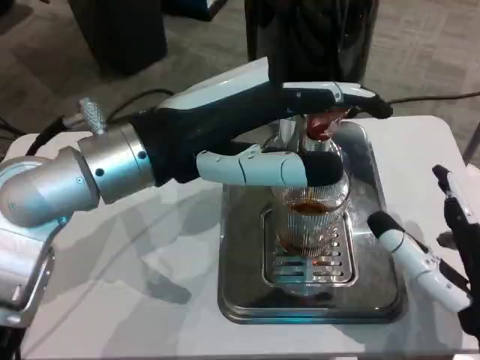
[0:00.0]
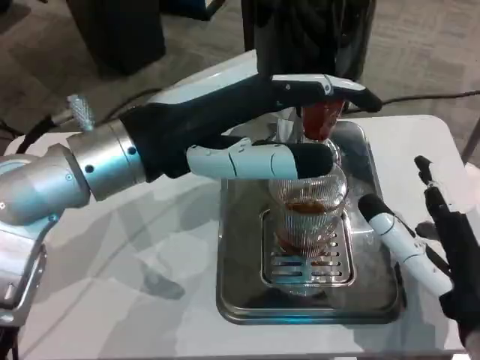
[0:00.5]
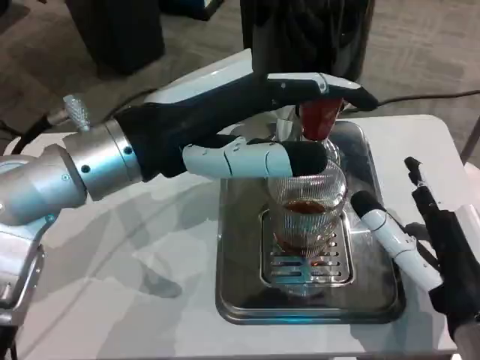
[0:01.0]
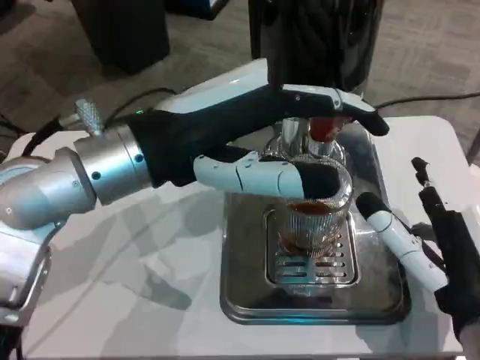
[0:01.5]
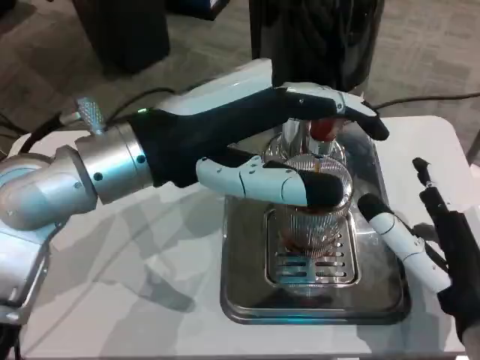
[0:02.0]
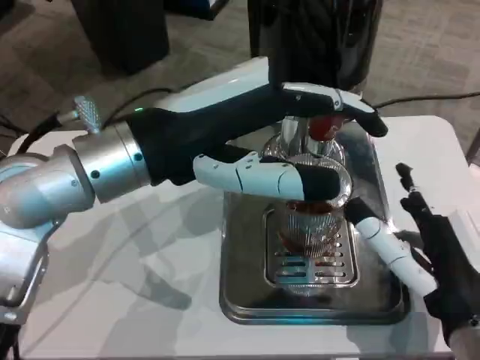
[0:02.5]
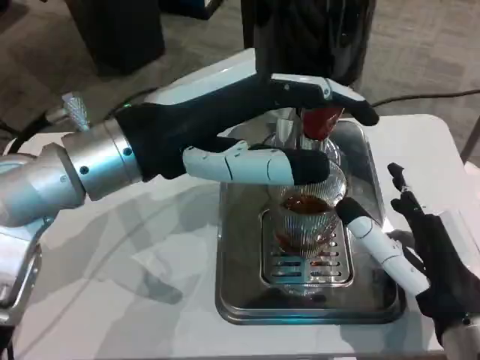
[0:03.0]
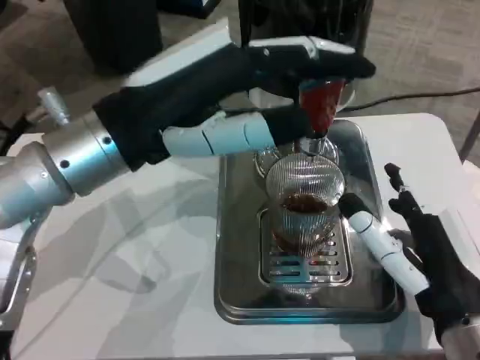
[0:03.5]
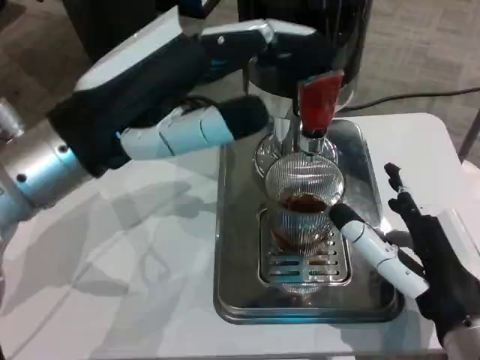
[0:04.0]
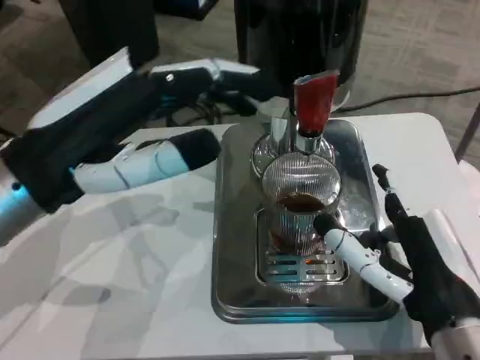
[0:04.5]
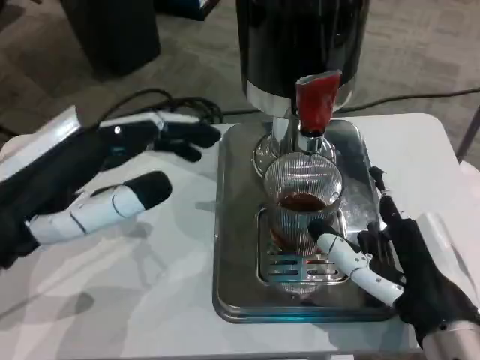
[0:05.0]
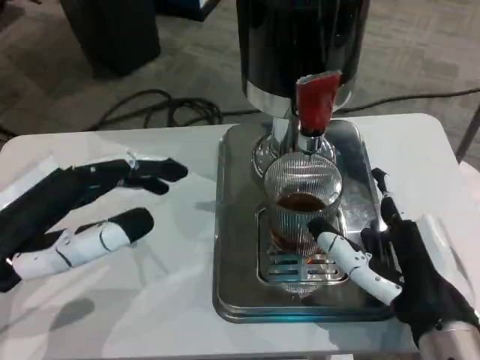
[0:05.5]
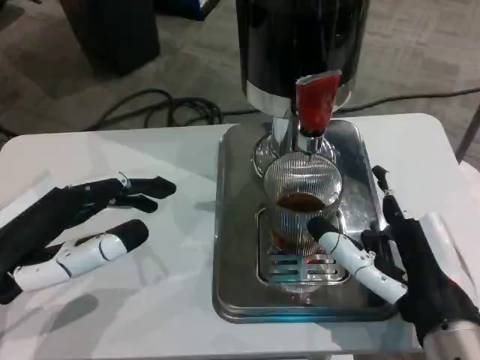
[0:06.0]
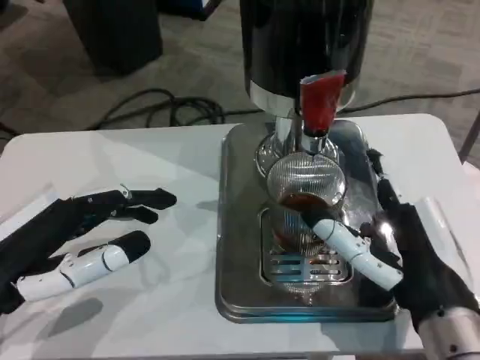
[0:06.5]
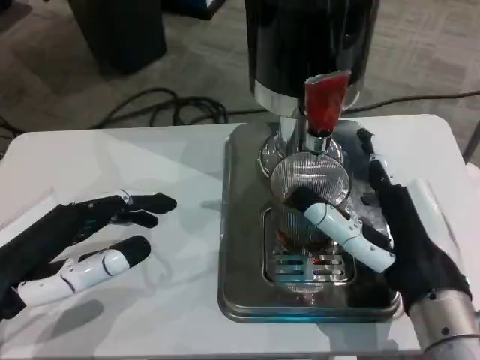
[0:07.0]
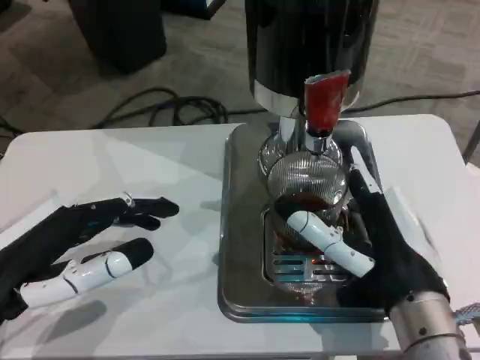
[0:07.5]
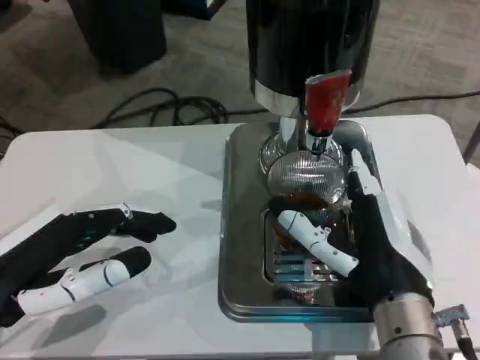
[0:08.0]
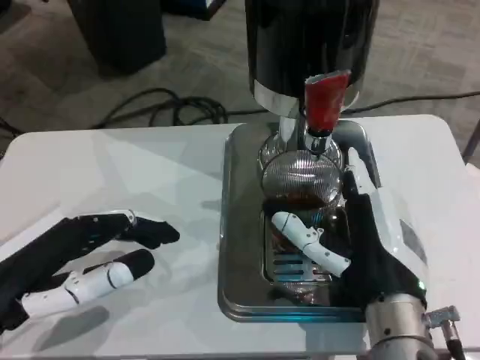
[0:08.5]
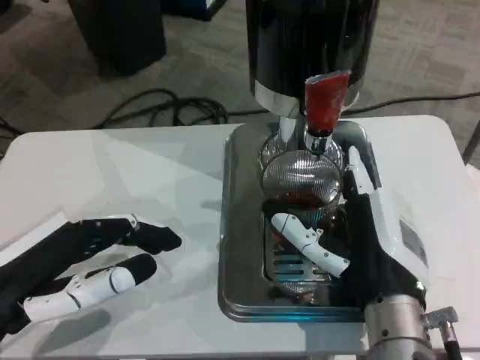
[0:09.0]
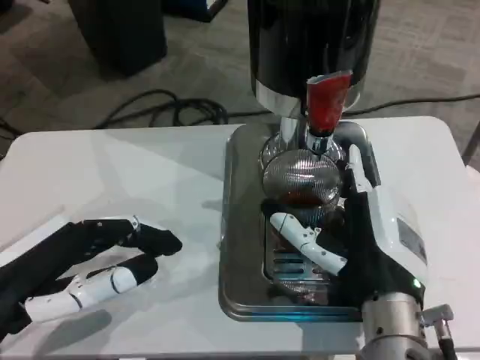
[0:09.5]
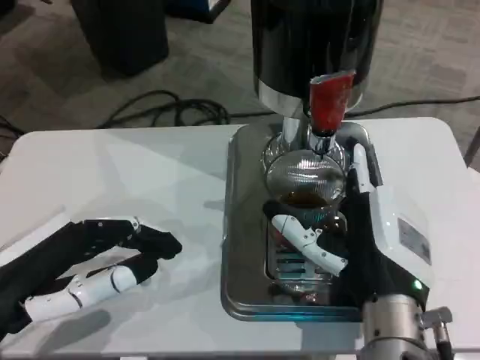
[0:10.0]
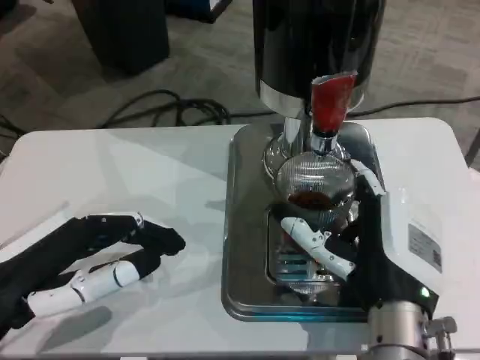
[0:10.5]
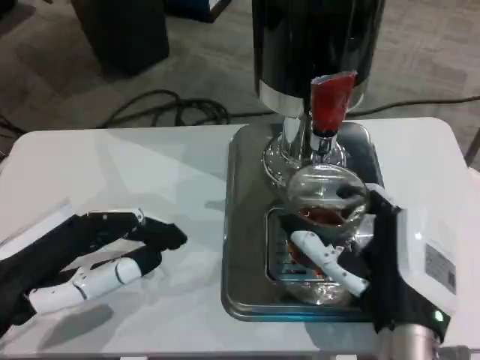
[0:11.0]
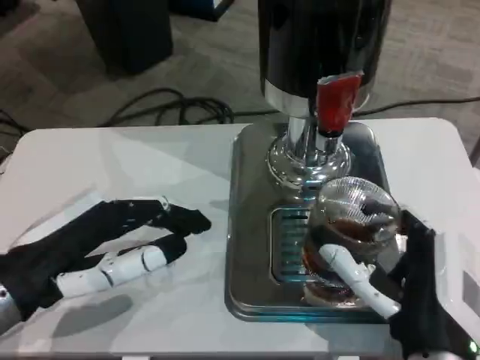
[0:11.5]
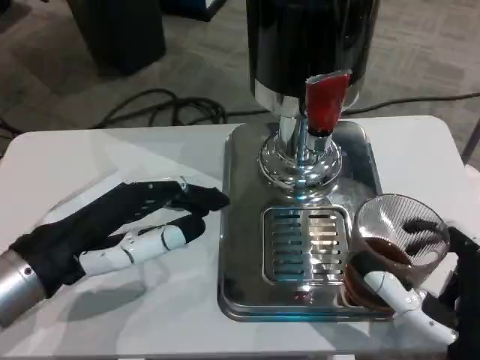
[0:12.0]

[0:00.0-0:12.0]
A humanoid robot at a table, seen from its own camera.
Task of the whole recording: Grasp the cup under the faucet to collect the drink, then remove the cup.
0:04.0 to 0:06.0: The left hand moves downward, to the left and backward, roughly 15 cm.
0:10.0 to 0:12.0: The right hand is displaced backward and to the right by approximately 10 cm. The left hand shifts by some 5 cm.

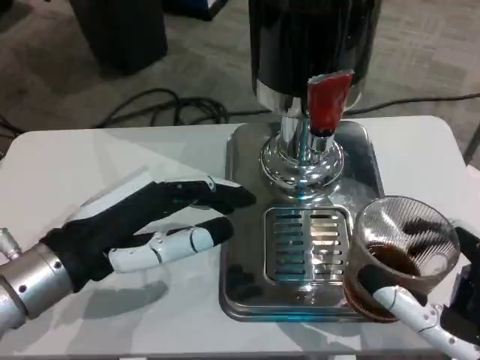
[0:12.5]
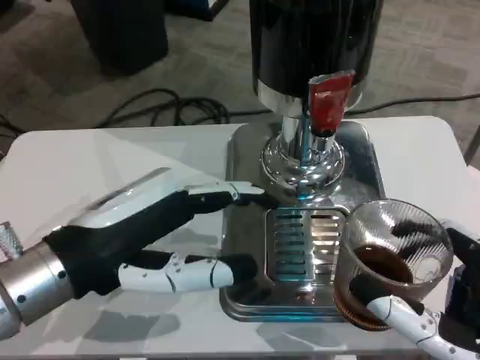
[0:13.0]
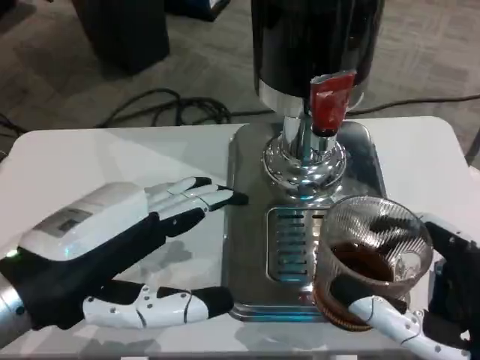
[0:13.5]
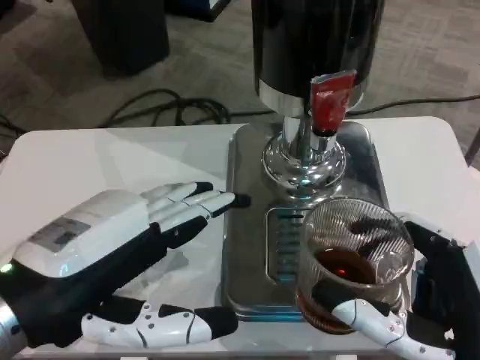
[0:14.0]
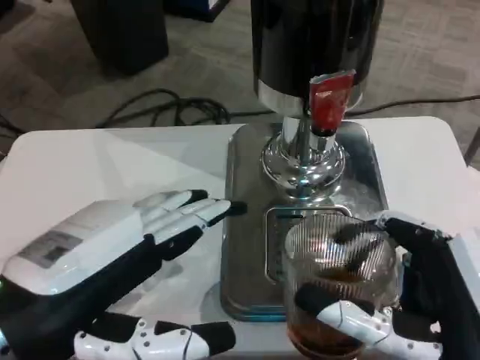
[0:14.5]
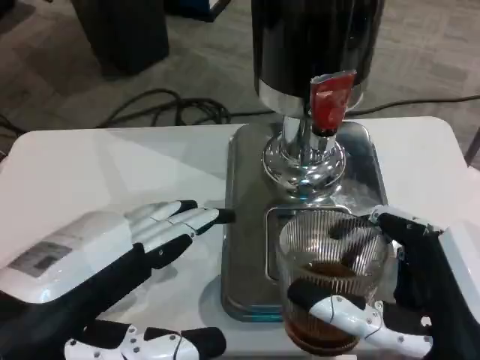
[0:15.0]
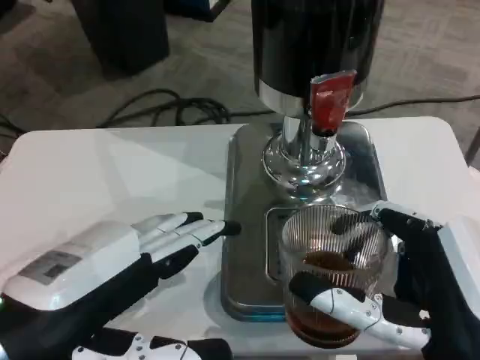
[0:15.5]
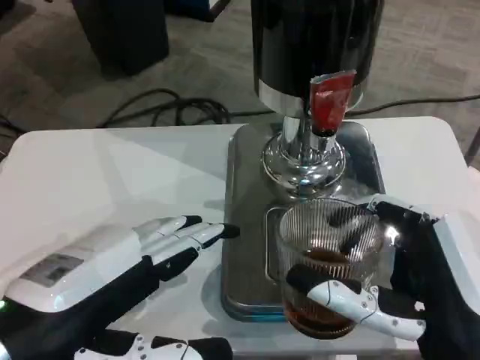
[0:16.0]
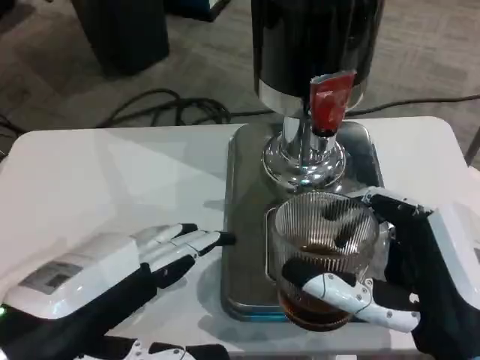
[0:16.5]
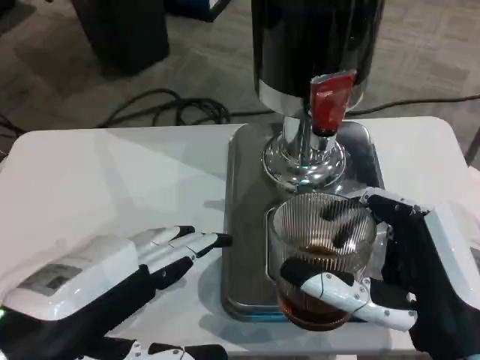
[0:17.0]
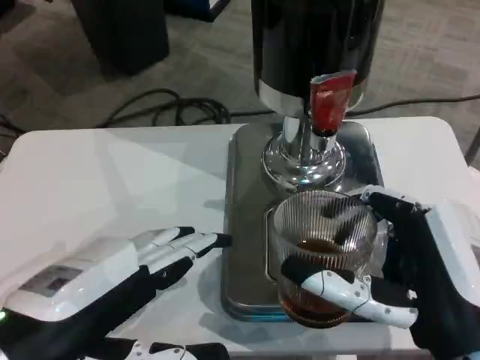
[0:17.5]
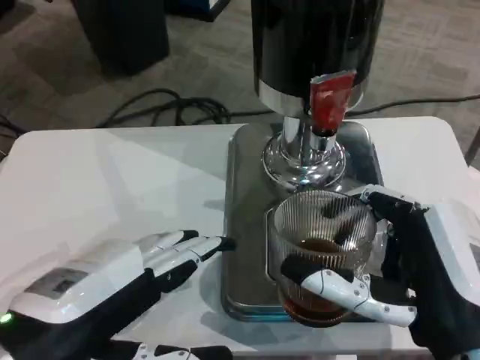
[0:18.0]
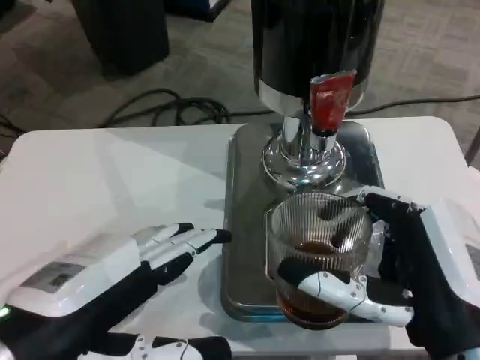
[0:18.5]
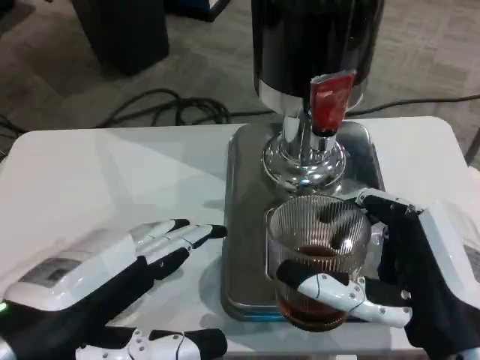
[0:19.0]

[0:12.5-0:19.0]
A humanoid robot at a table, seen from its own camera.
Task of the whole recording: Grasp the cup under the faucet to collect the drink, then remove the cup.
0:12.5 to 0:14.5: The left hand shifts about 10 cm backward.
0:17.0 to 0:19.0: The two hands keep their place.

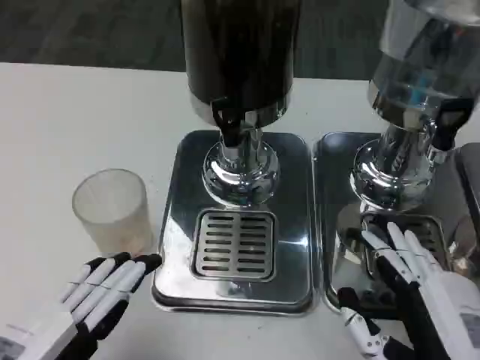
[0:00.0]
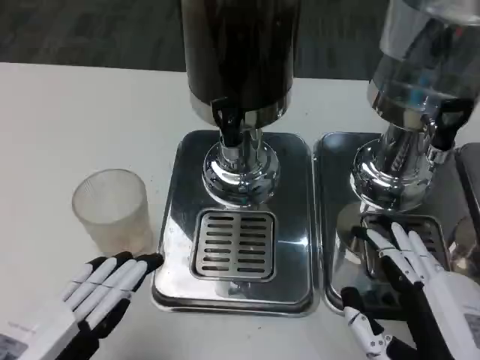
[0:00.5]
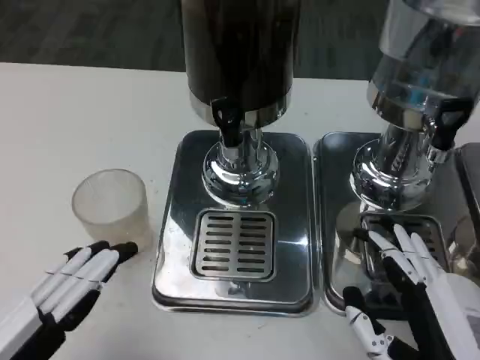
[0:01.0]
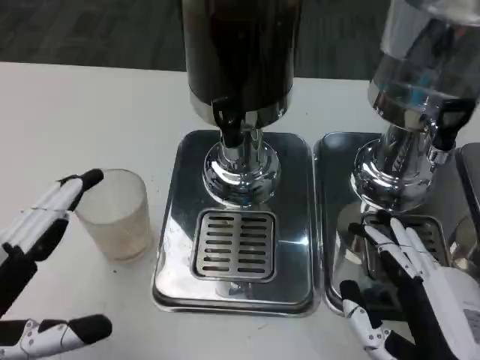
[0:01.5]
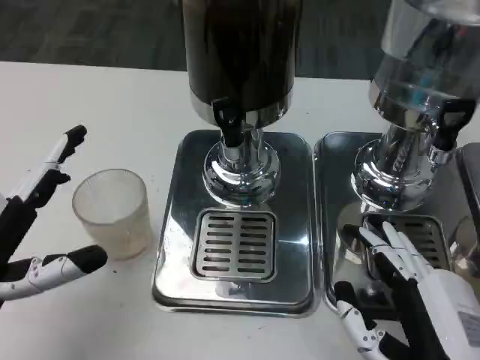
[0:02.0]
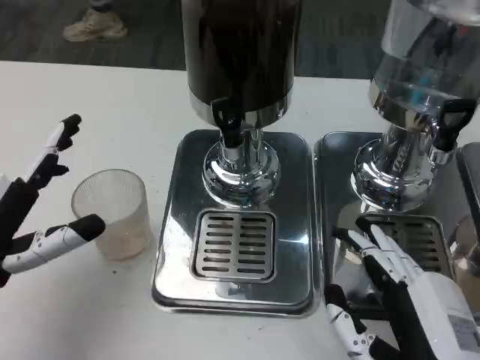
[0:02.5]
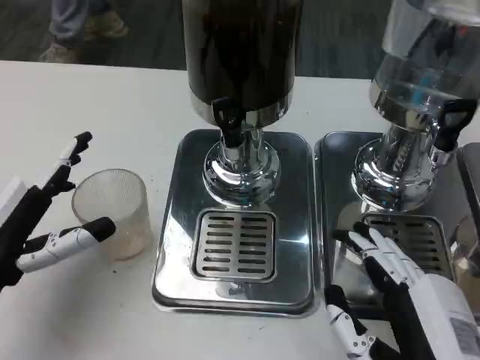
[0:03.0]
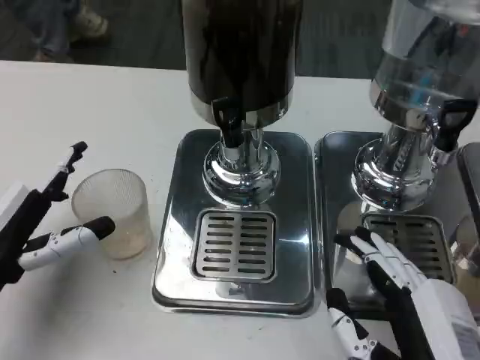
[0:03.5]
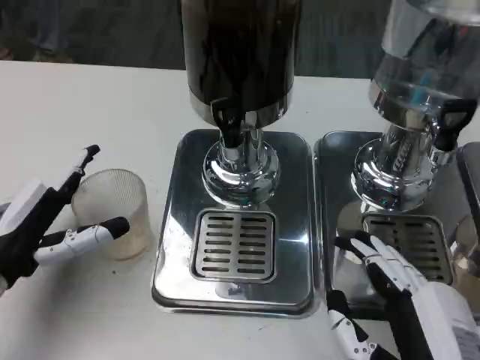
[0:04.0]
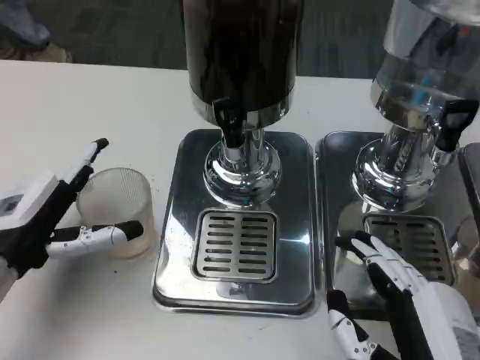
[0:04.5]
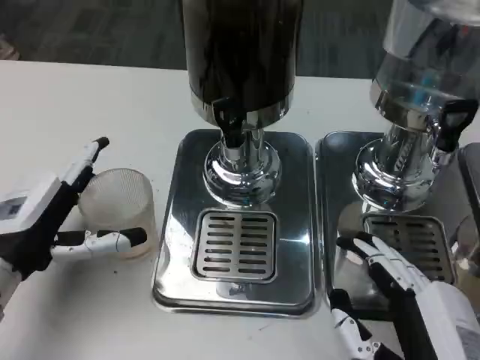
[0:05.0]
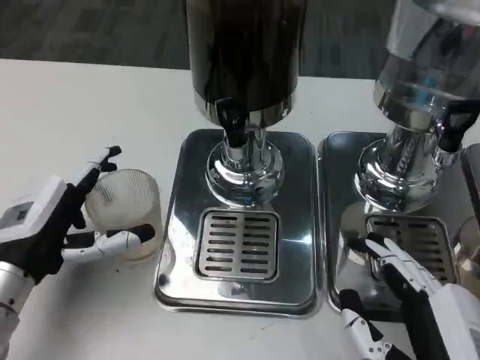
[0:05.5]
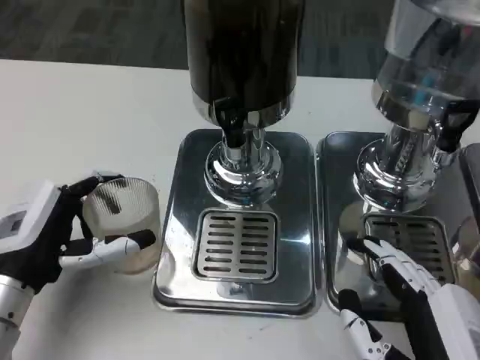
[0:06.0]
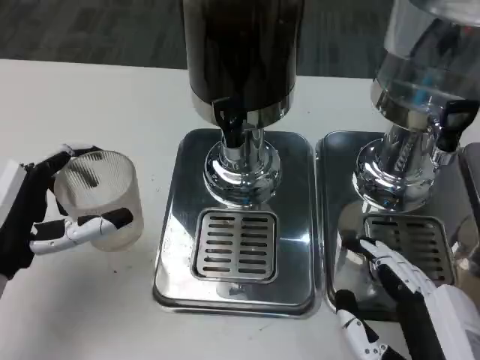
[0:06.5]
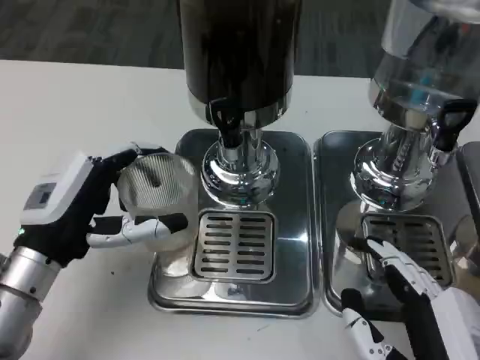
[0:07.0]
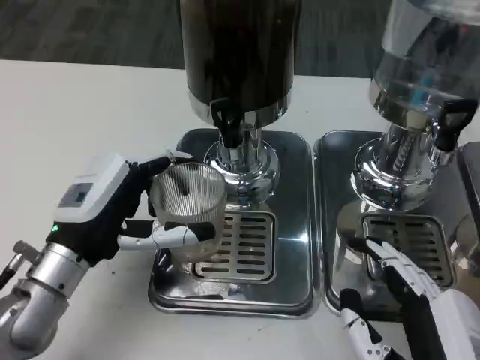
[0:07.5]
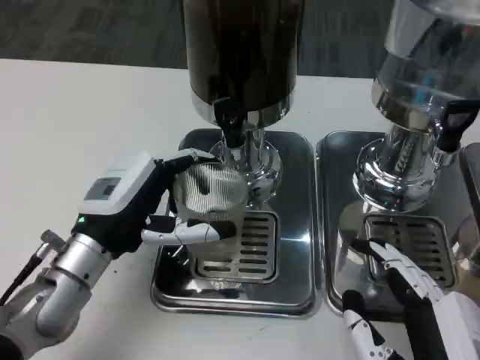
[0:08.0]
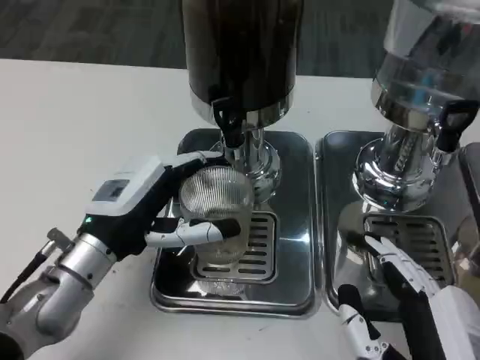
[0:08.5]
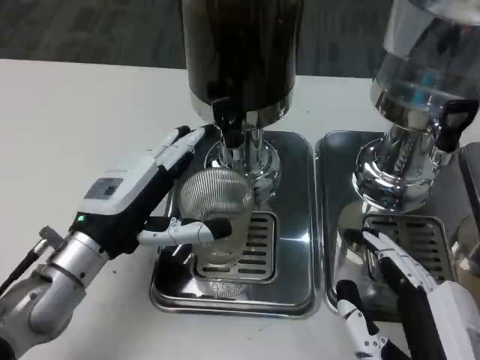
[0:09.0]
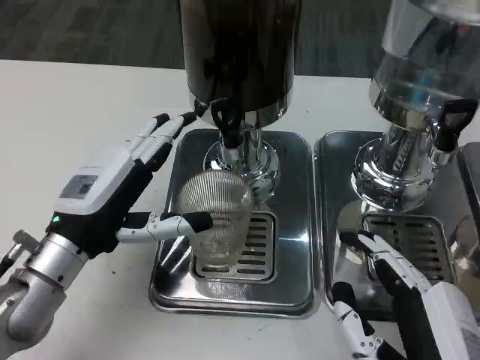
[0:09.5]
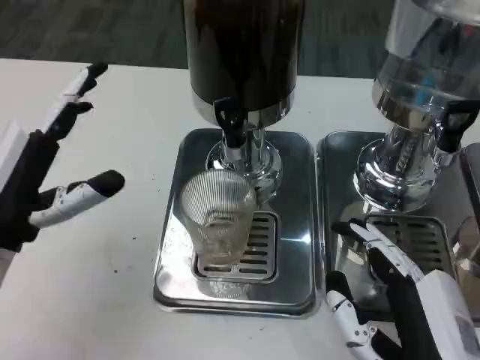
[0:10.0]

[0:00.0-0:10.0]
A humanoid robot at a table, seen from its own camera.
Task of the whole recording: Grasp the cup under the faucet to collect the drink, then remove the cup.
0:00.0 to 0:02.0: The left hand goes about 10 cm forward.
0:02.0 to 0:04.0: The left hand goes about 5 cm forward.
0:06.0 to 0:08.0: The left hand goes about 5 cm to the right.
0:08.0 to 0:10.0: The left hand moves to the left, roughly 5 cm.
